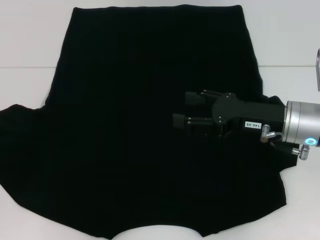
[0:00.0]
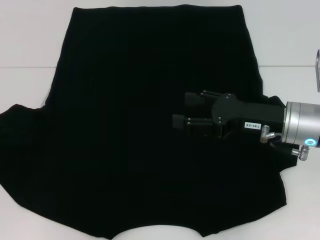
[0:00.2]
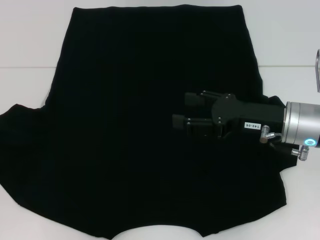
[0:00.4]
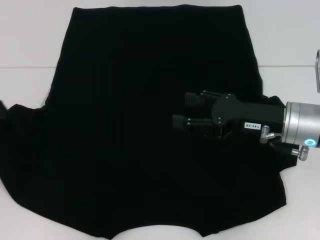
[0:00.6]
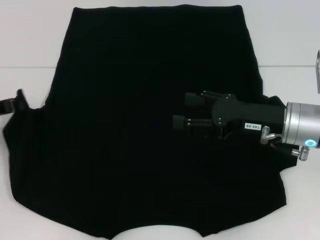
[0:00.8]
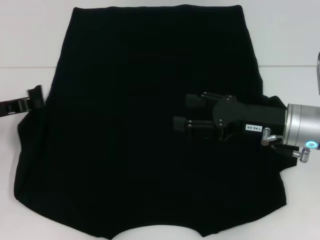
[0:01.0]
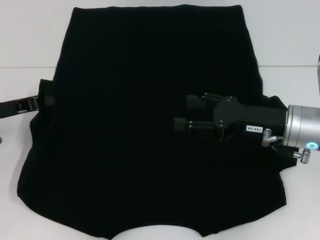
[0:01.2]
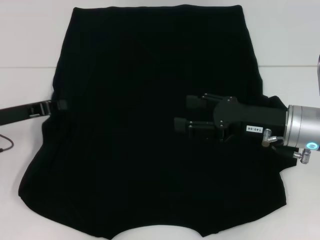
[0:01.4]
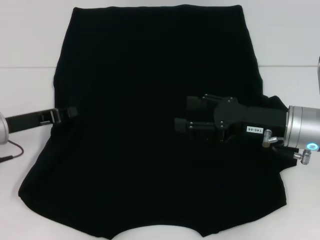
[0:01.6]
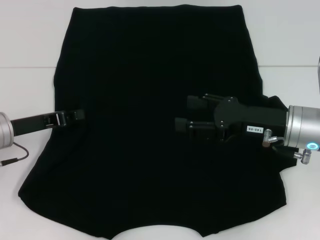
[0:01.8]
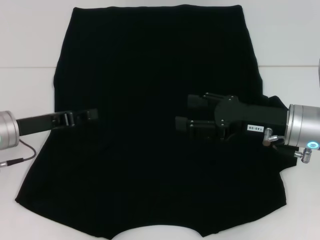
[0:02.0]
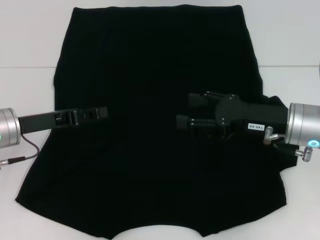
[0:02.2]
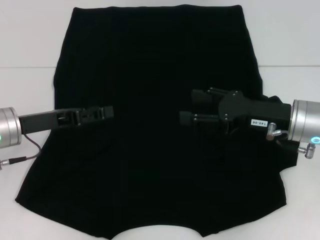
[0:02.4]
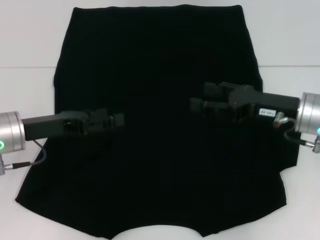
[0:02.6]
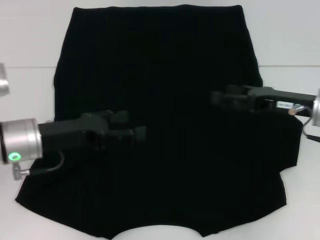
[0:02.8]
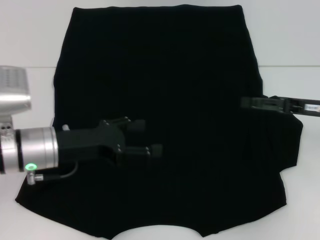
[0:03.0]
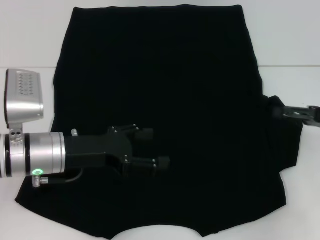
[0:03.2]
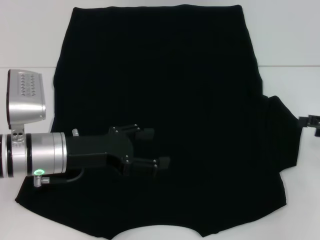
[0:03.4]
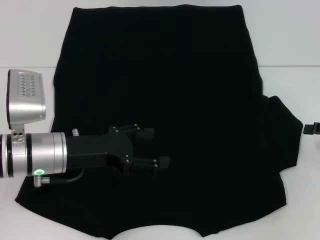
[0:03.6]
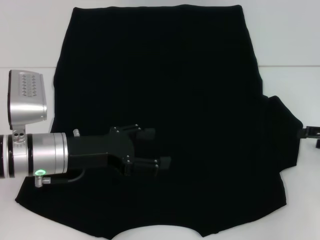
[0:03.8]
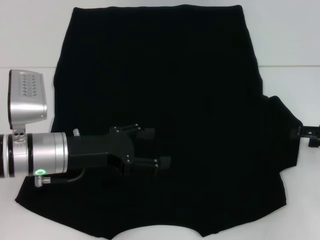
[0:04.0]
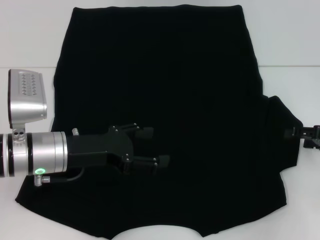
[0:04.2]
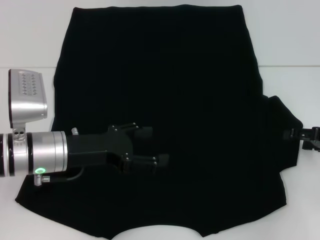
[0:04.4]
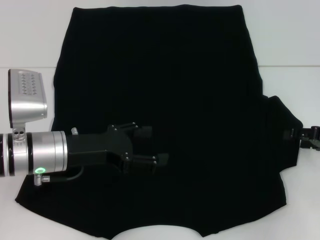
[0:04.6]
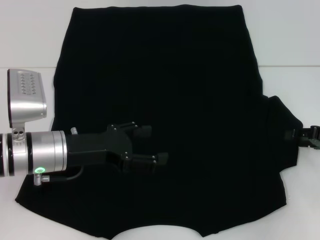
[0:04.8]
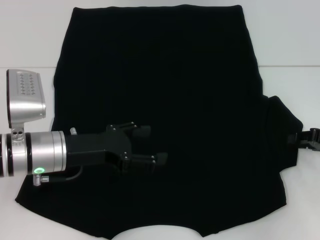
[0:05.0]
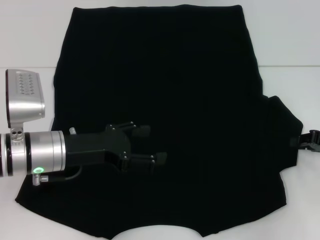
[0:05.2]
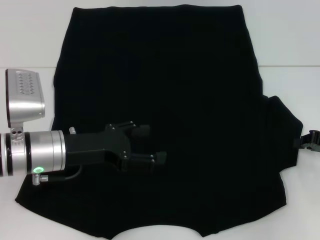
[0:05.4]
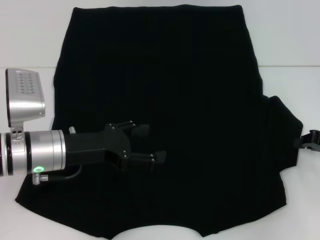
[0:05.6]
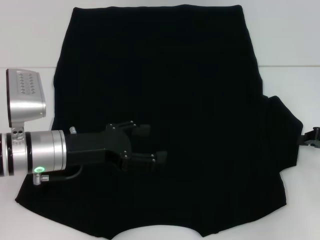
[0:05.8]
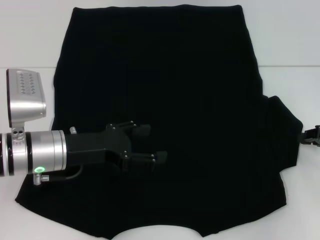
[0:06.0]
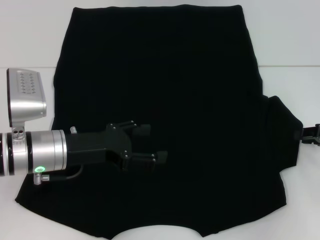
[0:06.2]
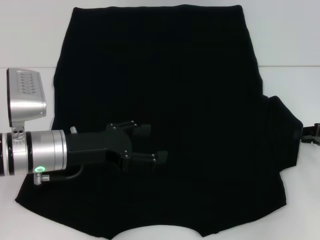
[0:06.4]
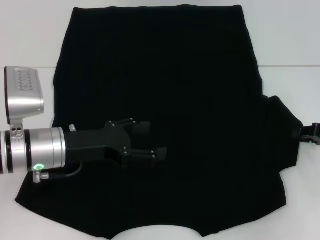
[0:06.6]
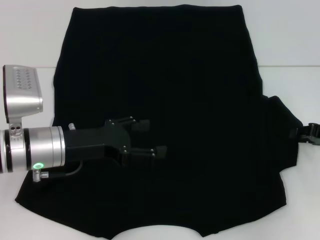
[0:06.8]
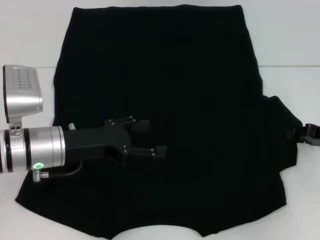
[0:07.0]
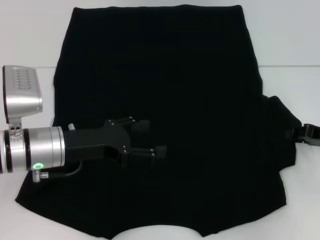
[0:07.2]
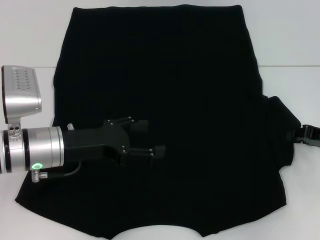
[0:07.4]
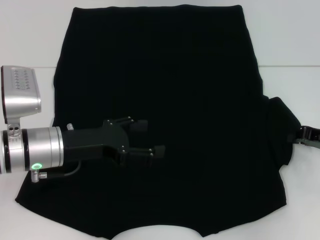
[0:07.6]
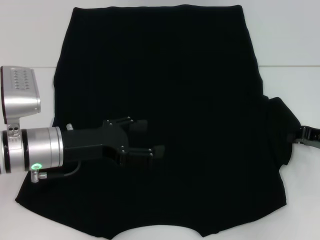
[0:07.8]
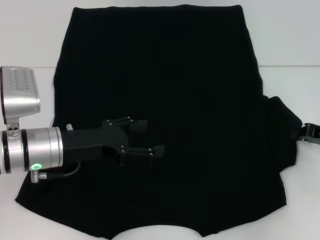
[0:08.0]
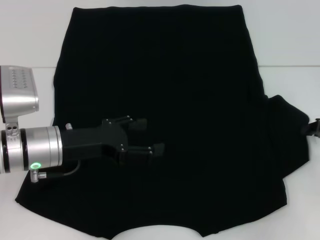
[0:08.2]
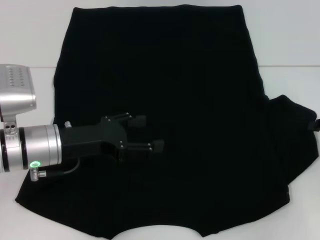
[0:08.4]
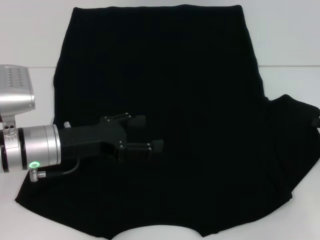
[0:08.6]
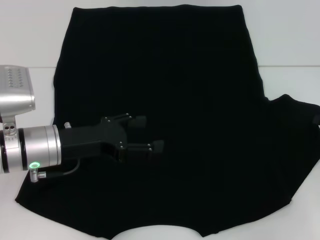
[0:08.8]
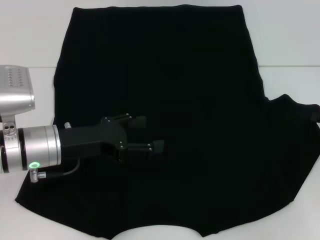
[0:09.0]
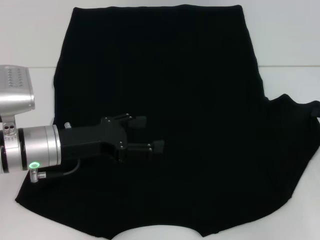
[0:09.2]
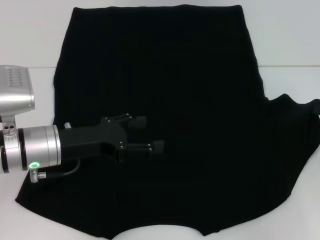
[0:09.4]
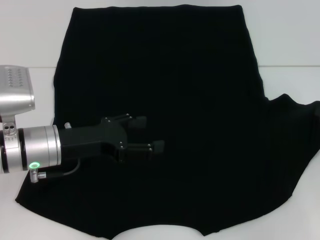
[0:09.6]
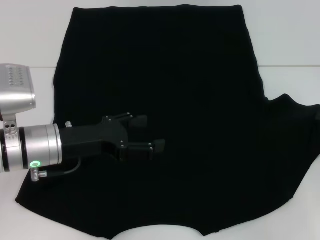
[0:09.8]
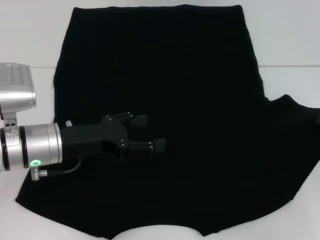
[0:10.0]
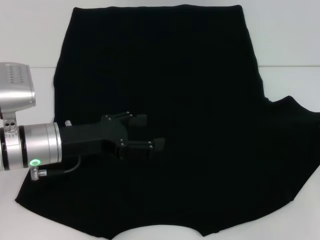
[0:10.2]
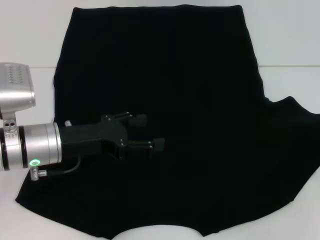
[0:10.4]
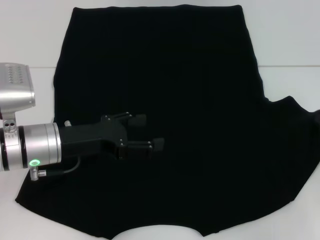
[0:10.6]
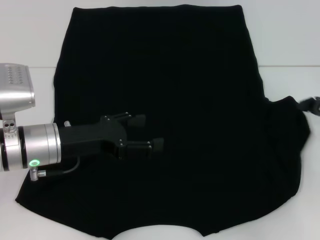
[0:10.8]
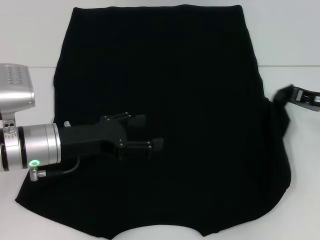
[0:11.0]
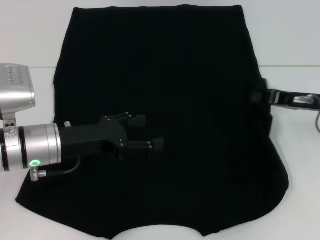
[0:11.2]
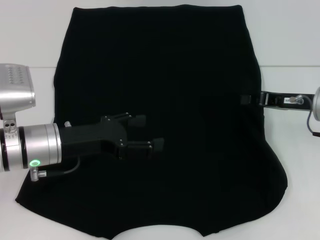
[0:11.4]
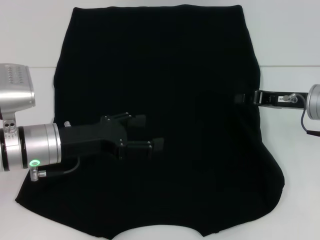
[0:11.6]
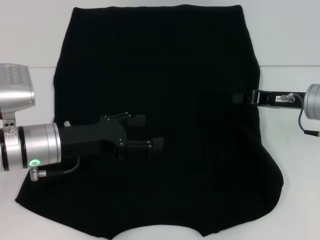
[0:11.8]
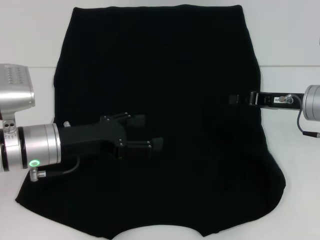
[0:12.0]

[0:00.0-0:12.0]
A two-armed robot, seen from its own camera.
Step, 0:00.0 to 0:02.2: Fold the bottom left sleeve with your left hand.
0:00.0 to 0:01.6: The left gripper heads to the right, covering about 10 cm.
0:01.6 to 0:03.0: The grippers both shift to the right by roughly 10 cm. The left gripper opens up.
0:03.0 to 0:04.4: The right gripper heads to the right, covering roughly 5 cm.
0:06.0 to 0:10.4: There are only small adjustments of the grippers.
0:10.4 to 0:12.0: The right gripper heads to the left and forward, covering some 15 cm.

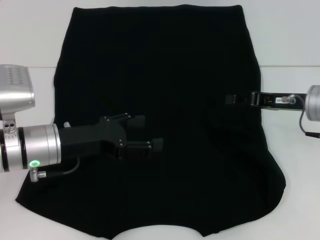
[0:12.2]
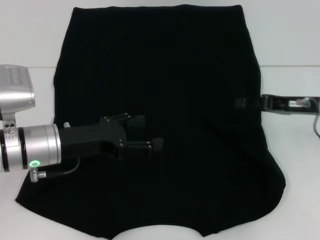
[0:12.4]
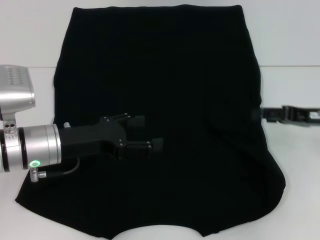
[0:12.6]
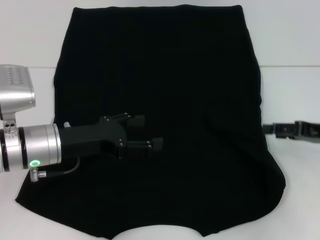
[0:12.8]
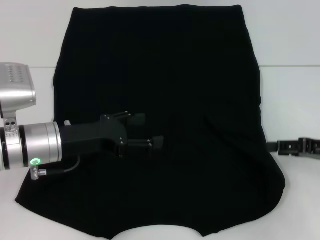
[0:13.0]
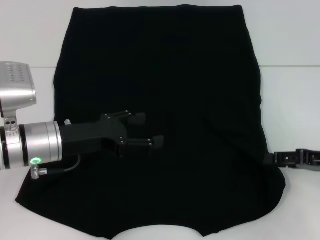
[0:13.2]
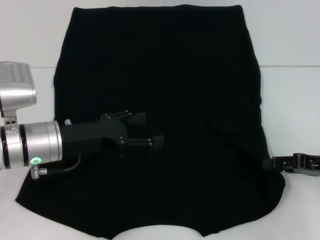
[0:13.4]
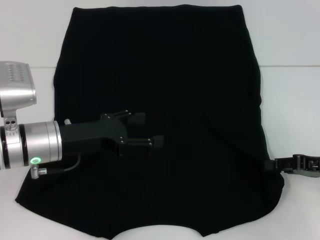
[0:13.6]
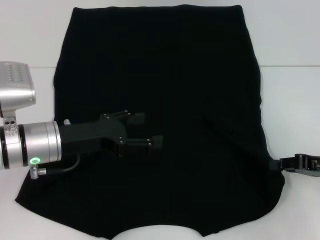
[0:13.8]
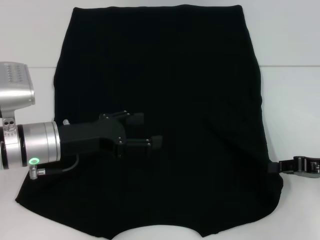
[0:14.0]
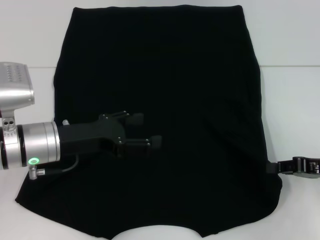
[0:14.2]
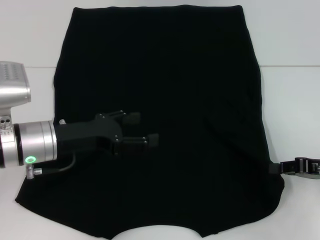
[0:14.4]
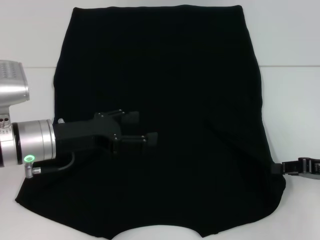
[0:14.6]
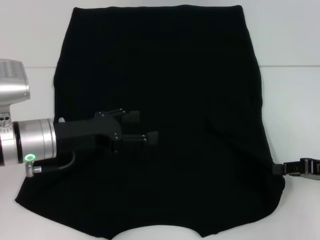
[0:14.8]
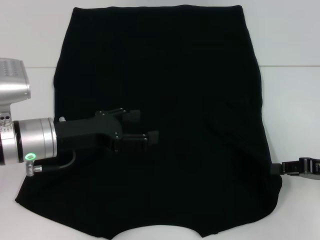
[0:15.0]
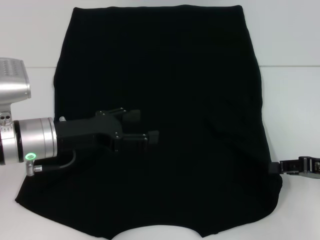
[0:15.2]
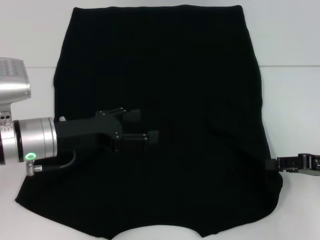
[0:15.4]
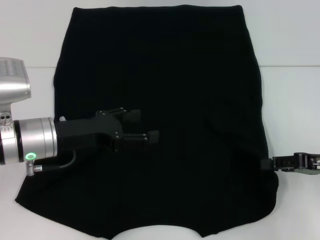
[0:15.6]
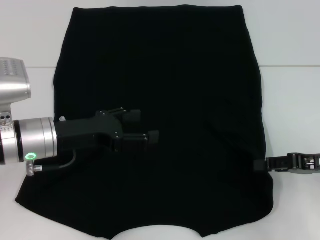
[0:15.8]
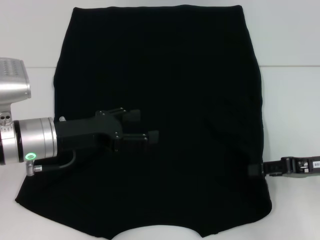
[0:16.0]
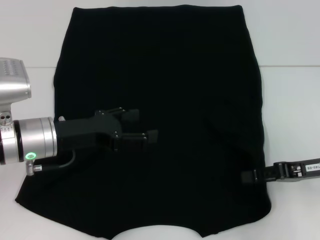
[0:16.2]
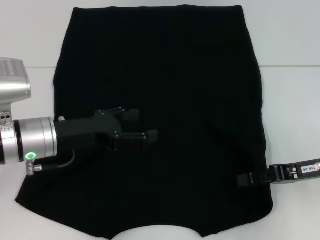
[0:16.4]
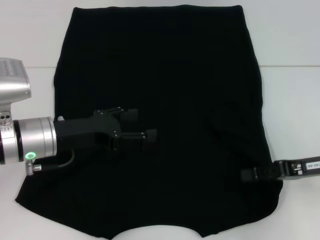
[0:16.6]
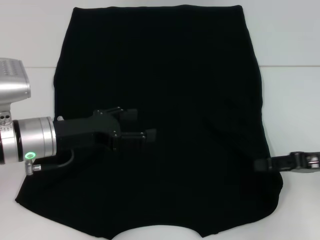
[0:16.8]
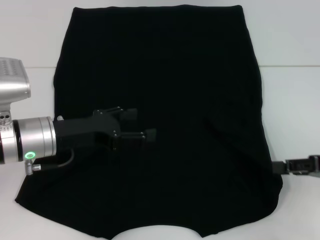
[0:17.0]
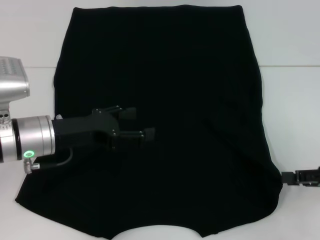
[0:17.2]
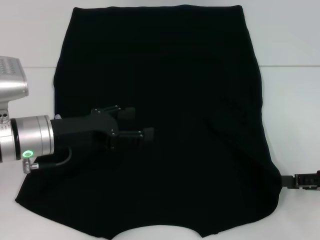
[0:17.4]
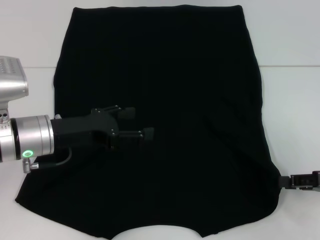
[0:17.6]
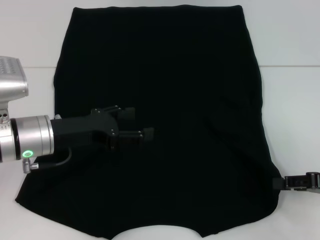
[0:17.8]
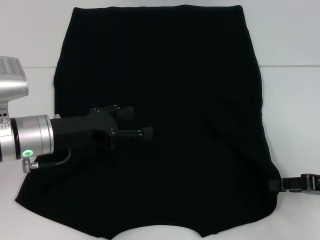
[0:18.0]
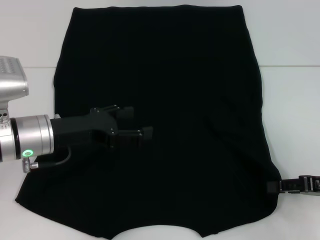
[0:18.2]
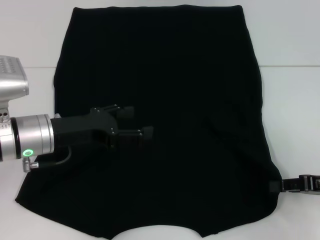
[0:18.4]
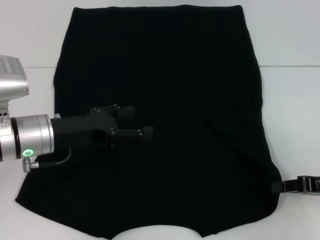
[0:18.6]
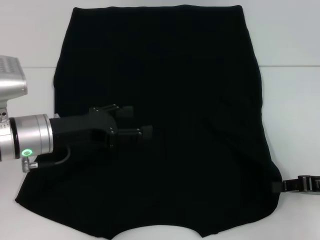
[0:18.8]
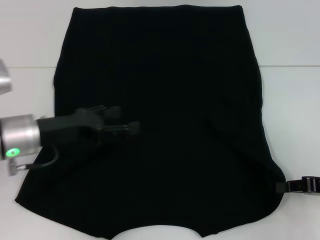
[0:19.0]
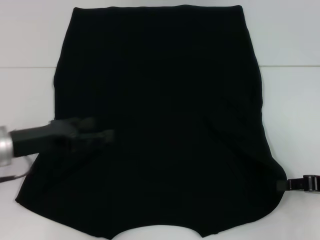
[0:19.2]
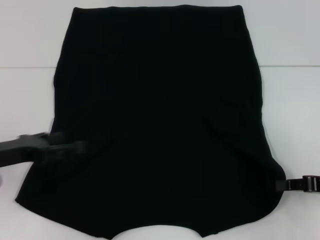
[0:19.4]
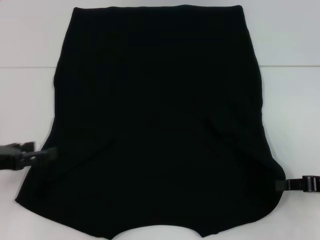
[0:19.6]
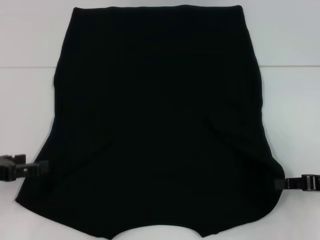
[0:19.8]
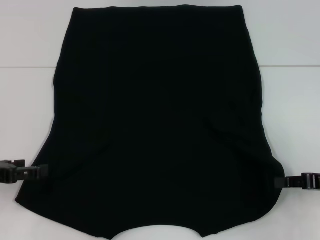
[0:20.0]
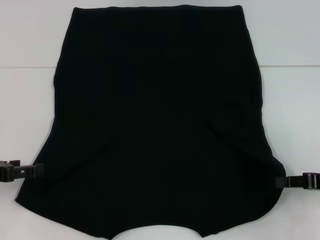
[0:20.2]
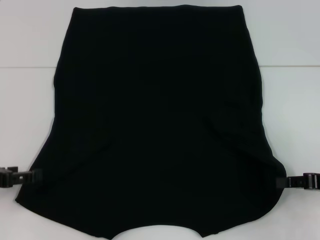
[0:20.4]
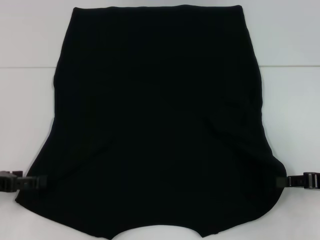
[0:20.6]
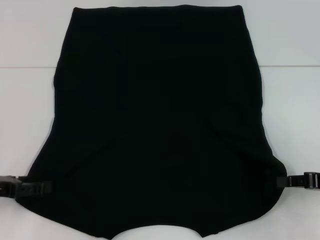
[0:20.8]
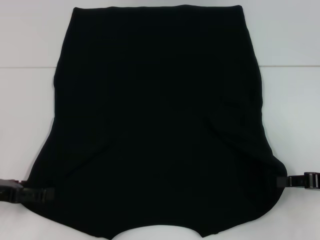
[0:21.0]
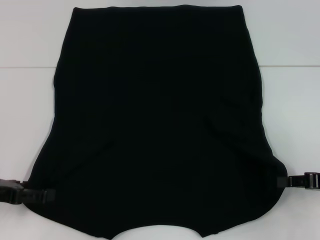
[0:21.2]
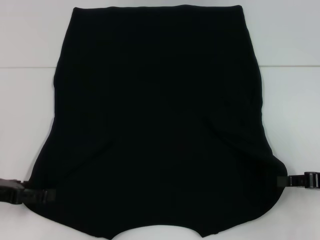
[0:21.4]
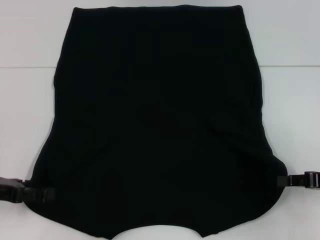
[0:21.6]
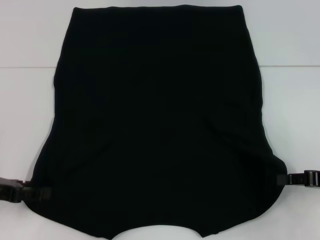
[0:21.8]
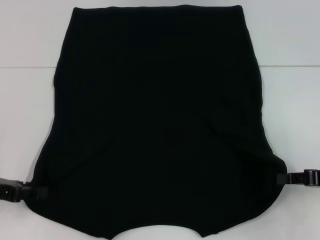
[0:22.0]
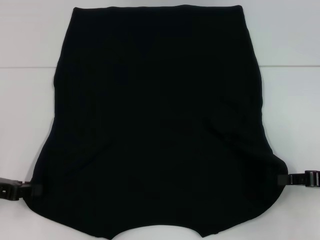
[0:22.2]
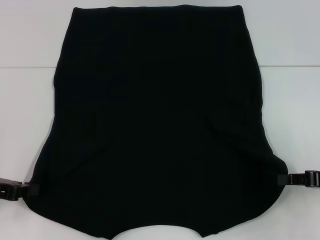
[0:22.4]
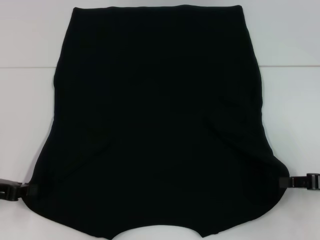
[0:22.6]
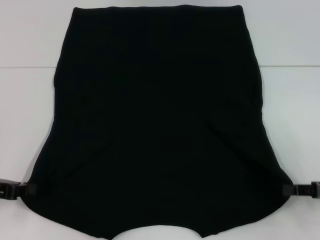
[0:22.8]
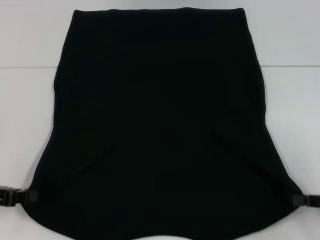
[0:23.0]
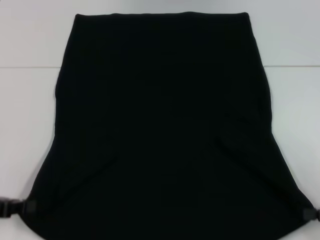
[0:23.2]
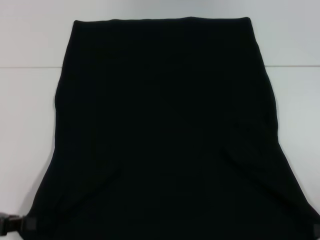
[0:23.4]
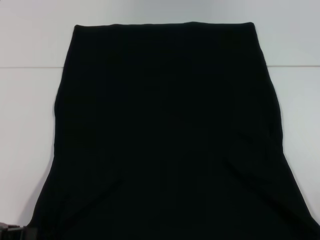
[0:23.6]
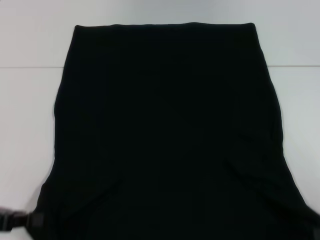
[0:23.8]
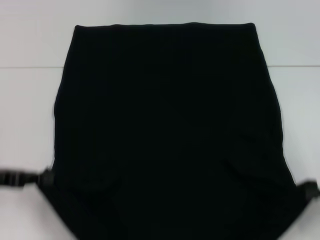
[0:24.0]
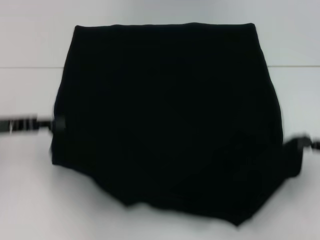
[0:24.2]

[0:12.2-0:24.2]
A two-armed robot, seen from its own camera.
Step, 0:12.4 to 0:18.8: Grab the bottom right corner with your right hand.
Step, 0:19.0 to 0:22.8: Grab the bottom left corner with your left hand.
0:12.2 to 0:13.8: The right gripper moves backward and to the right, about 10 cm, and opens and closes again.
0:13.8 to 0:15.2: Neither gripper changes place.
0:15.2 to 0:16.6: There are only small adjustments of the grippers.
0:16.6 to 0:18.2: The right gripper moves roughly 5 cm.
0:18.2 to 0:19.8: The left gripper travels to the left and backward by approximately 15 cm, while the right gripper closes.
0:19.8 to 0:21.2: The grippers move only a little.
0:21.2 to 0:22.6: The left gripper closes its fingers.
0:22.6 to 0:24.2: The right gripper reaches roughly 10 cm backward, then returns. The left gripper shifts about 5 cm upward.
